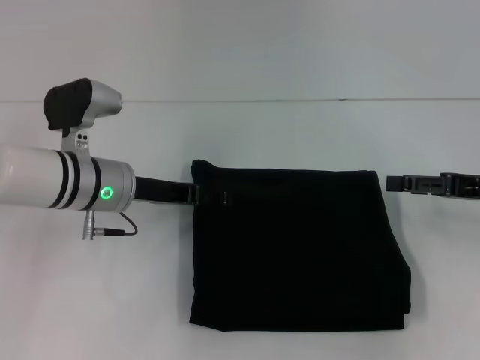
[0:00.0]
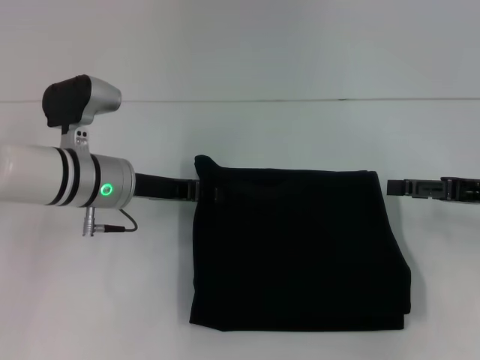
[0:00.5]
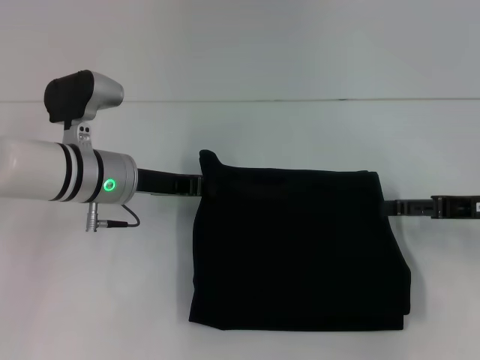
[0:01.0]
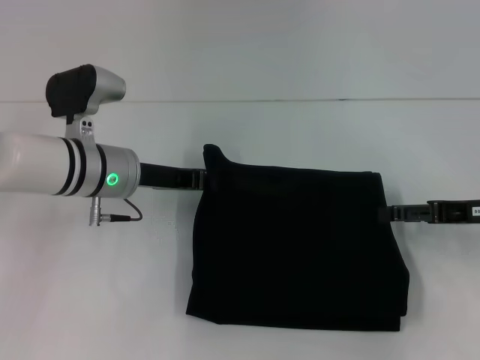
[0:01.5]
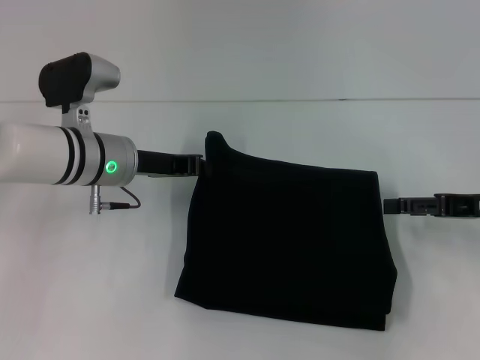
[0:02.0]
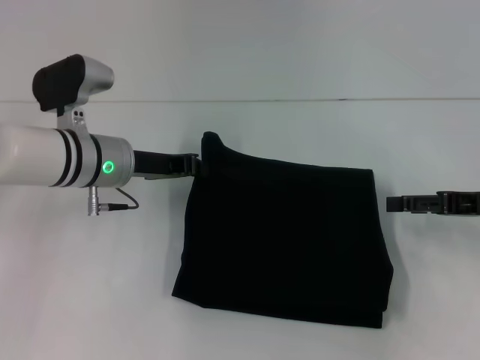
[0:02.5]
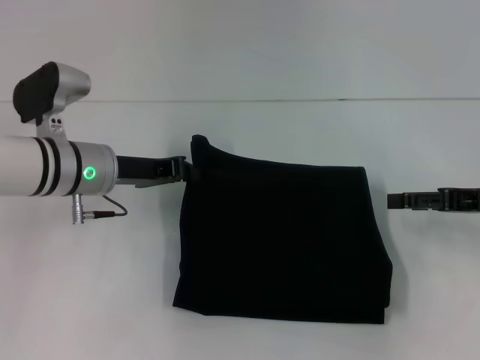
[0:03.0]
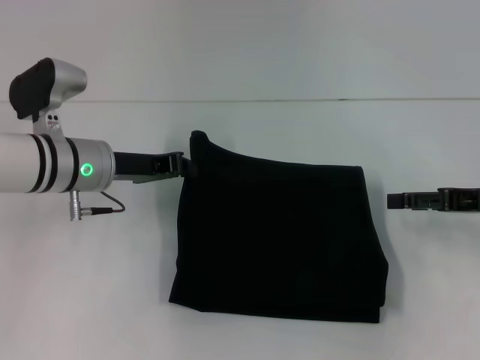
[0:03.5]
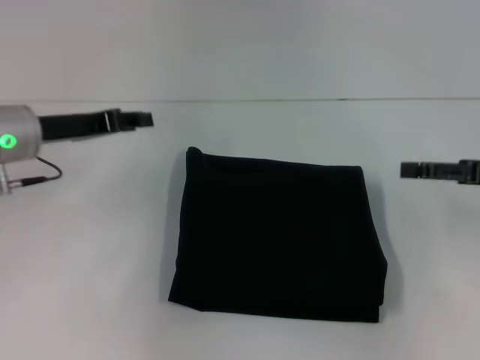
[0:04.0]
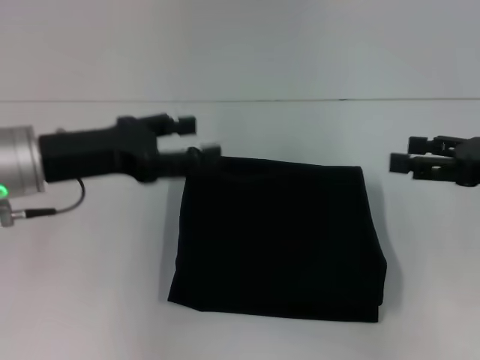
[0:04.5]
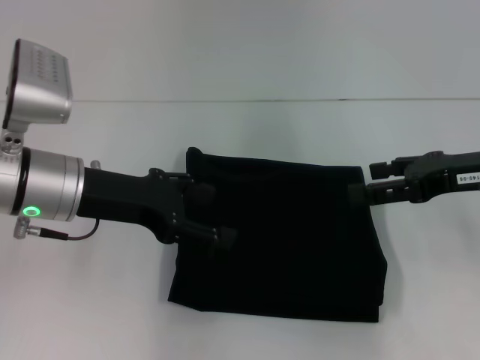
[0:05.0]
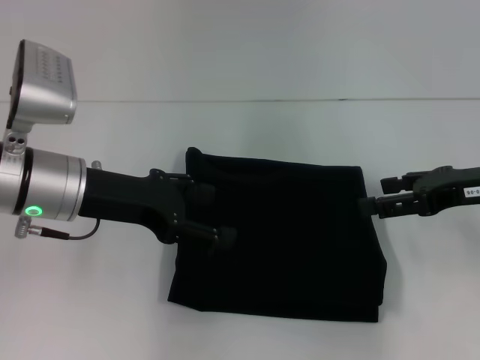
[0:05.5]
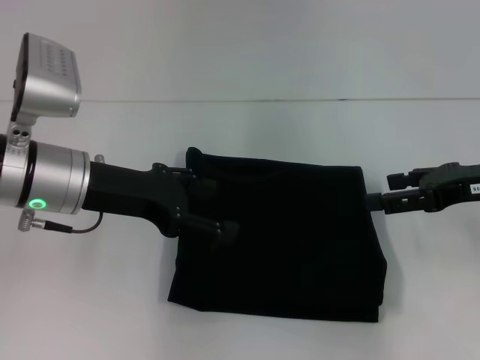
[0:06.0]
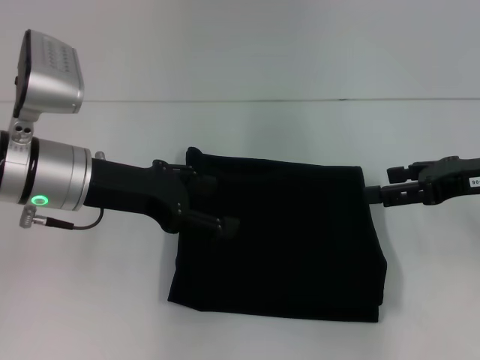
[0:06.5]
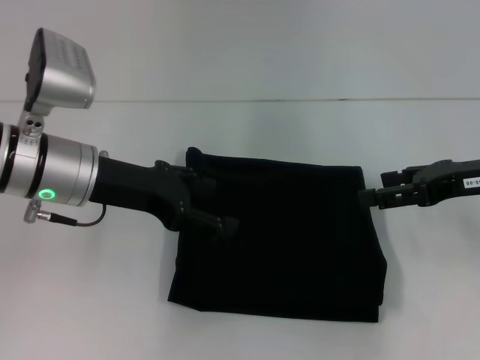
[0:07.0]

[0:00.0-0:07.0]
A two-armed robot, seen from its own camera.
0:00.0 to 0:02.0: The left gripper closes.
0:02.0 to 0:03.5: There are only small adjustments of the grippers.
0:03.5 to 0:05.0: The left gripper heads backward and upward, covering roughly 10 cm, and opens. Meanwhile the right gripper shifts roughly 5 cm upward.
0:05.0 to 0:07.0: The grippers make only small movements.

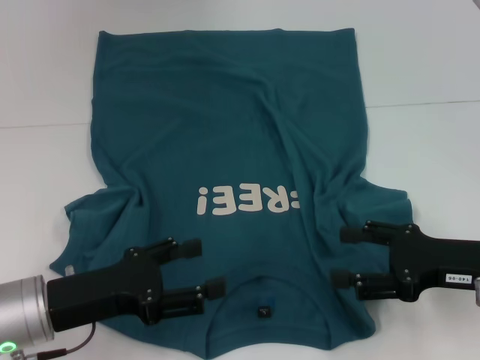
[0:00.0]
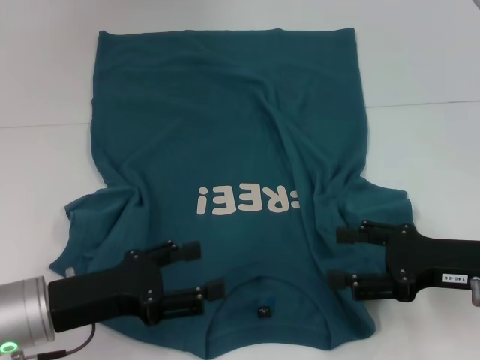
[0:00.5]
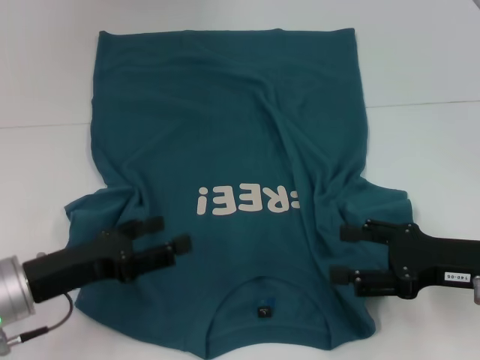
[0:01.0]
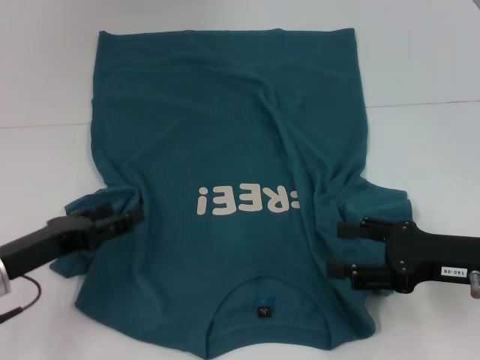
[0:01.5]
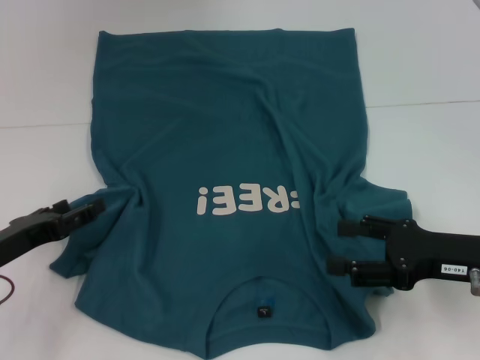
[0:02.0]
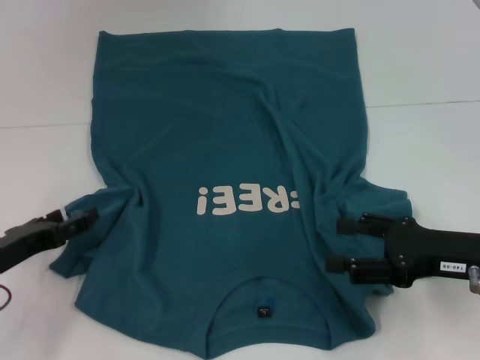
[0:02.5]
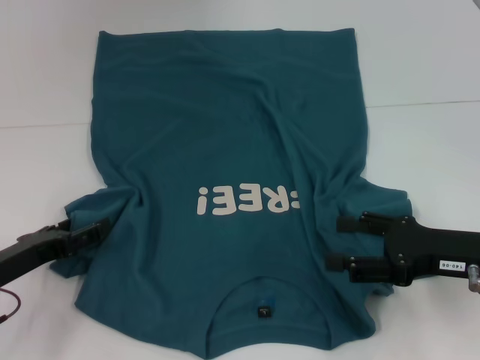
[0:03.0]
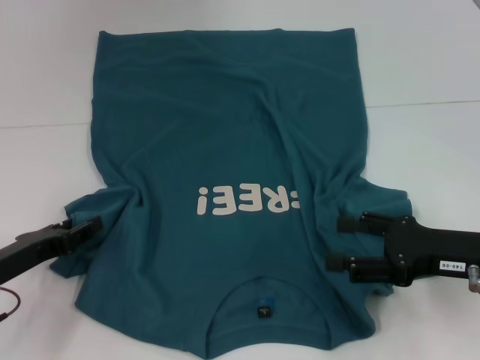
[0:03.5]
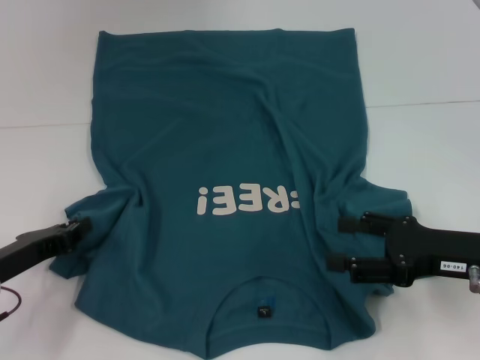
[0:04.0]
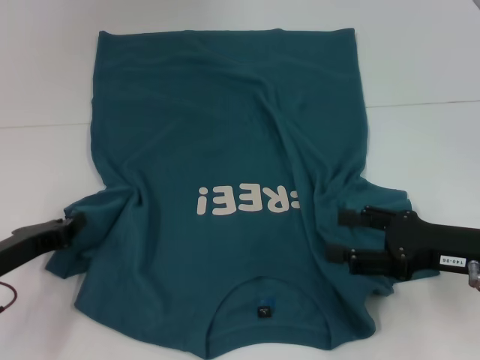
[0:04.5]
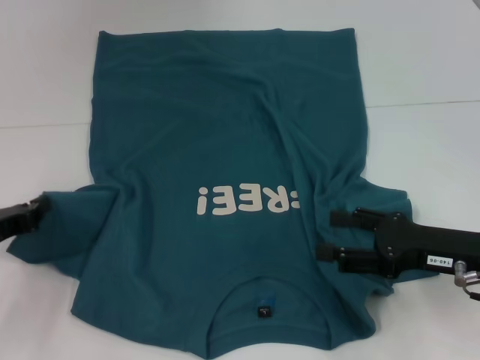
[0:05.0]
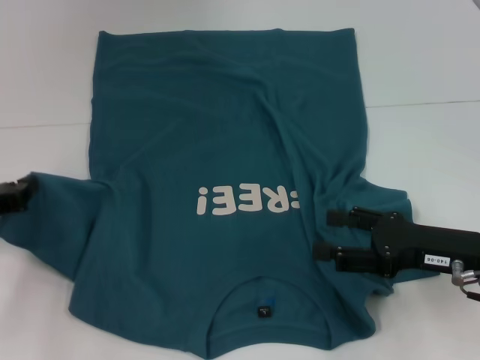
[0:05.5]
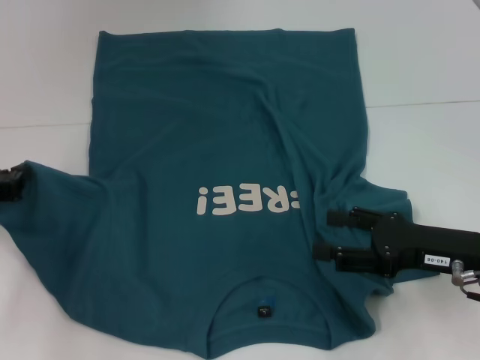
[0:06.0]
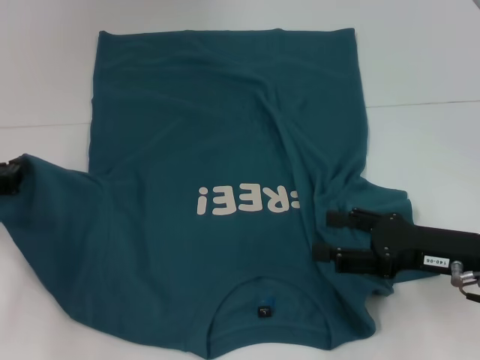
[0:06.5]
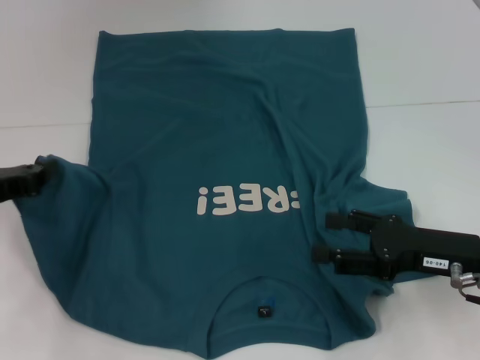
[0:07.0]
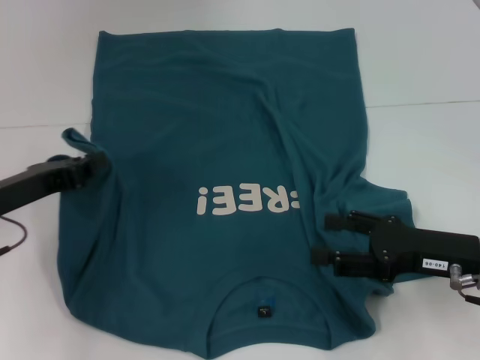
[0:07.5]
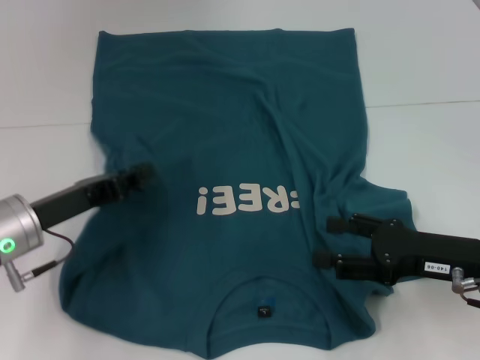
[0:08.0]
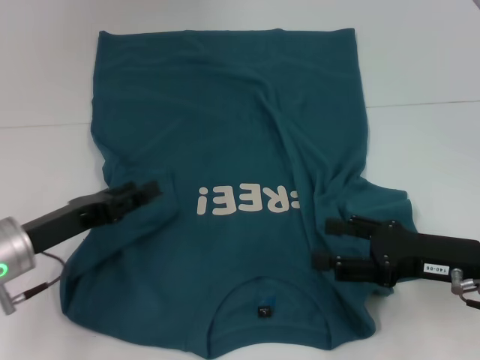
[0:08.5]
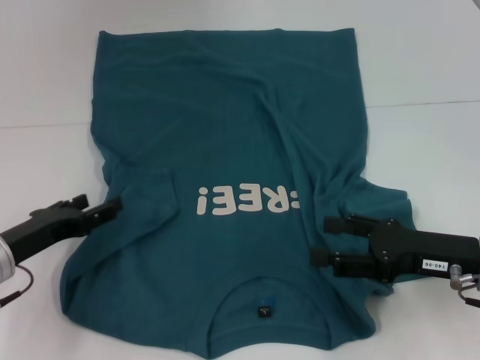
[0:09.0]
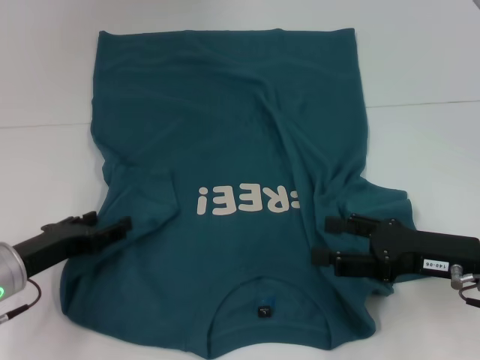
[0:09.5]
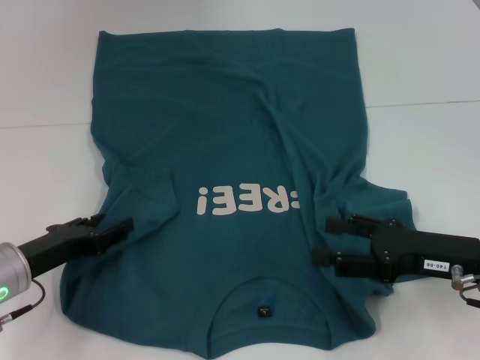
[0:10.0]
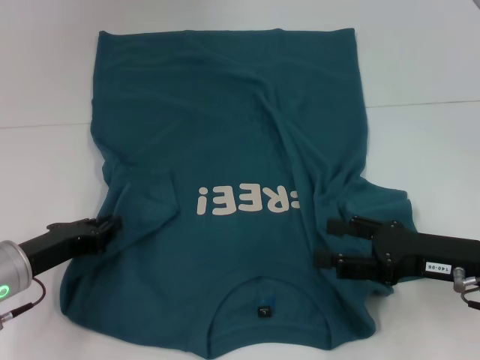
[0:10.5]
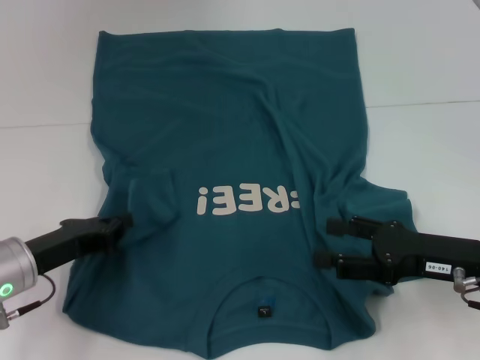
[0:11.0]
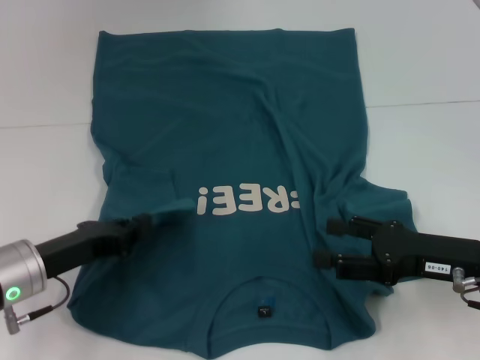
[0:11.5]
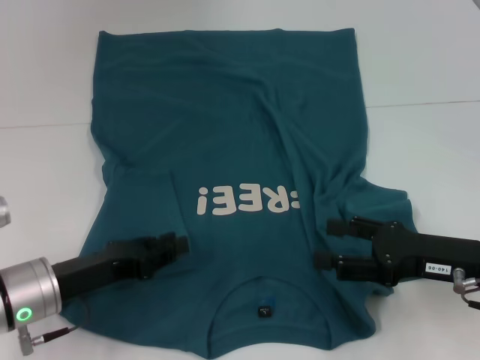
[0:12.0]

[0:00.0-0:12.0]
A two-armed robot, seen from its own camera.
0:00.0 to 0:02.0: The left gripper shifts approximately 5 cm to the left.
0:02.0 to 0:04.0: The left gripper closes up.
0:04.0 to 0:06.0: The left gripper heads upward, covering about 5 cm.
0:06.0 to 0:08.0: The left gripper shifts roughly 10 cm to the right.
0:08.0 to 0:10.0: The left gripper ends up some 5 cm from where it was, and opens its fingers.
0:10.0 to 0:12.0: The left gripper closes its fingers.

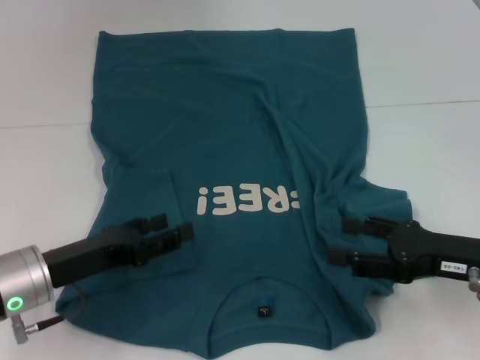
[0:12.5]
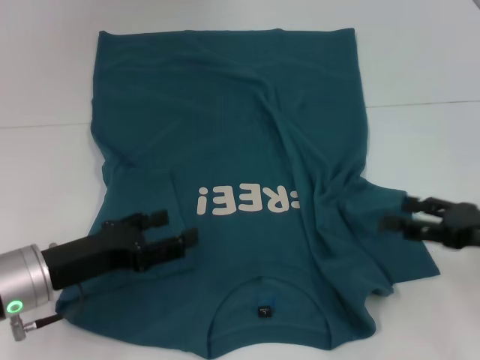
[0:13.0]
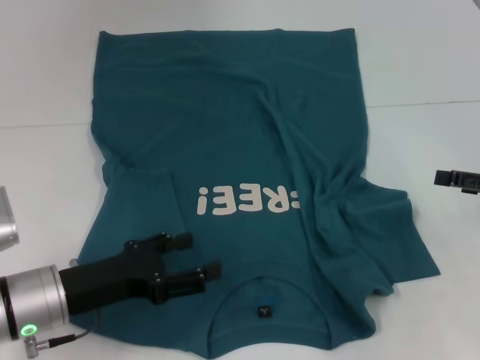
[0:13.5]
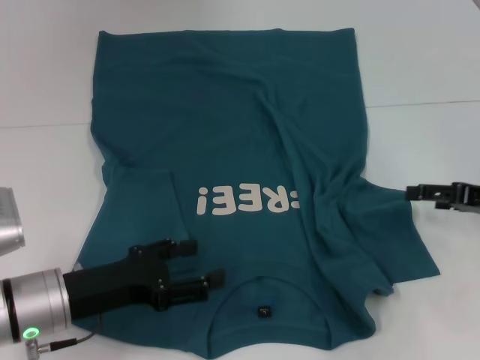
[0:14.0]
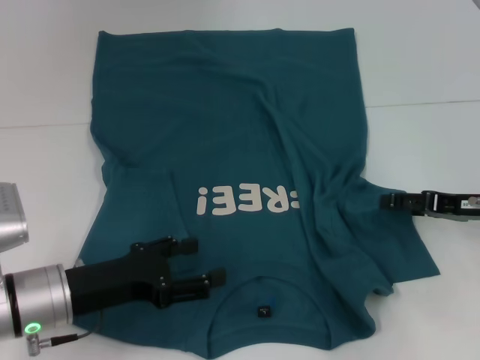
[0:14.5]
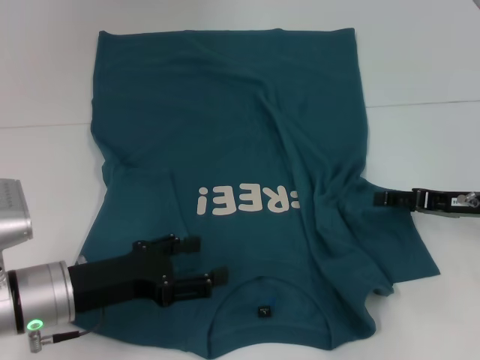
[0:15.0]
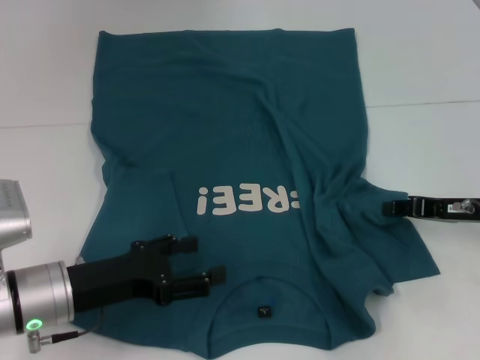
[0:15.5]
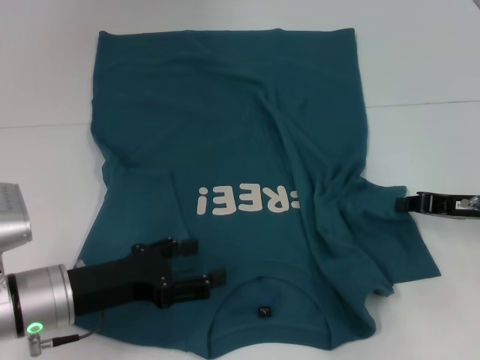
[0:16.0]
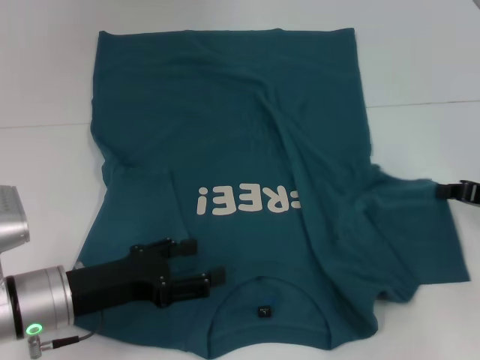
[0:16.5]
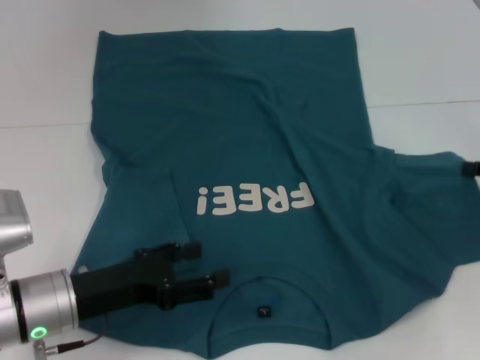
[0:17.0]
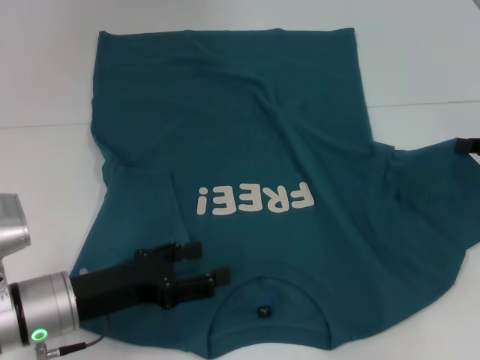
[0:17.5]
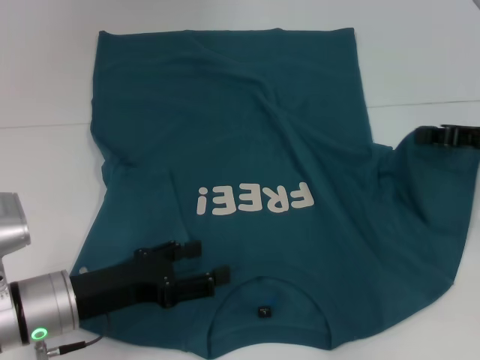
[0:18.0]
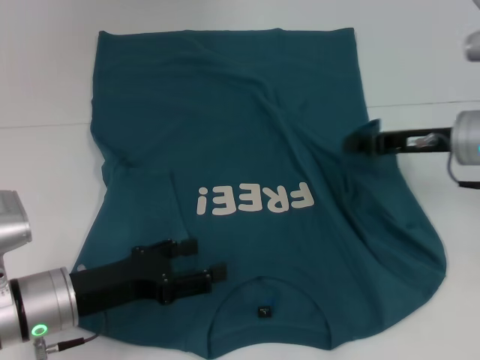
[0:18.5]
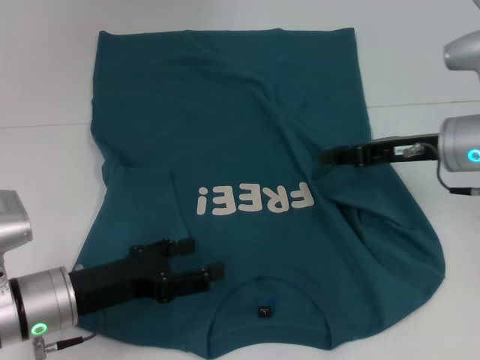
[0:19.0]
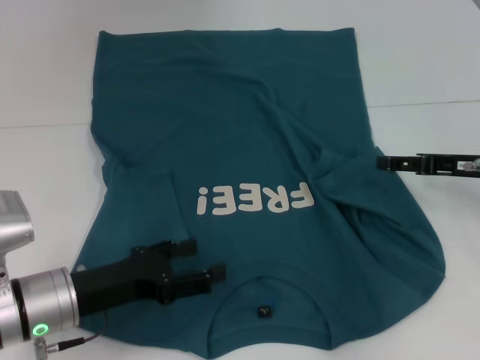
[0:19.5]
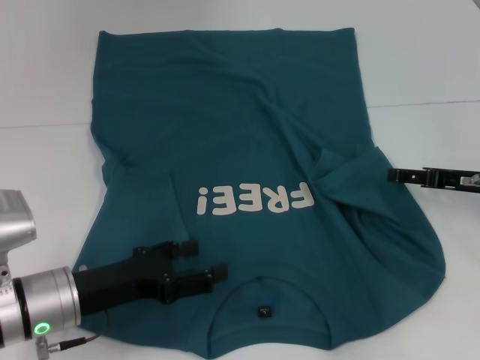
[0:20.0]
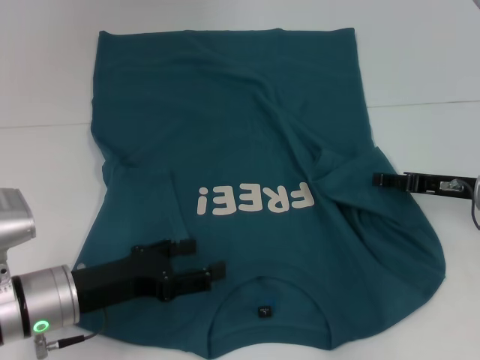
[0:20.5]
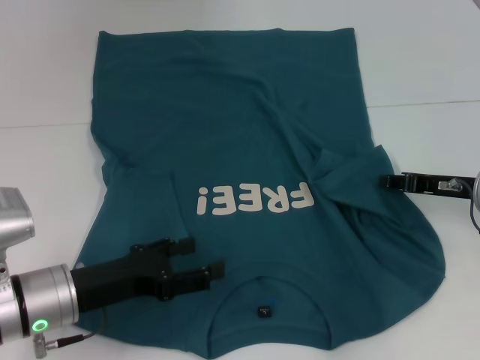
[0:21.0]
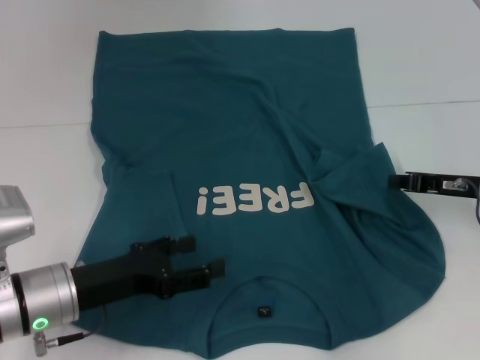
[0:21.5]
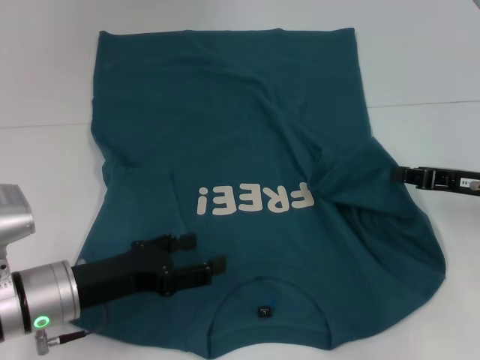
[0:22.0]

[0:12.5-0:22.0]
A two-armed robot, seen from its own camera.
0:12.5 to 0:14.5: The right gripper moves forward, some 5 cm.
0:14.5 to 0:16.5: The right gripper closes.
0:16.5 to 0:18.0: The right gripper goes about 5 cm upward.
0:18.0 to 0:20.0: The right gripper goes about 5 cm downward, moves some 10 cm to the left and comes back, and opens its fingers.
0:20.0 to 0:22.0: The right gripper closes its fingers.
